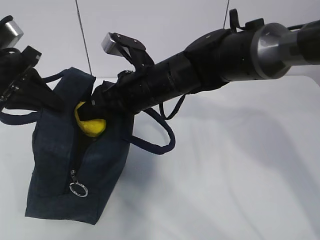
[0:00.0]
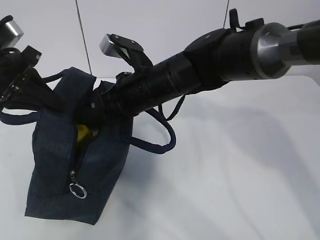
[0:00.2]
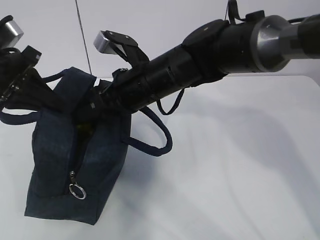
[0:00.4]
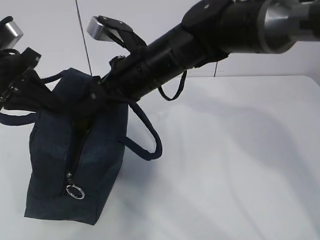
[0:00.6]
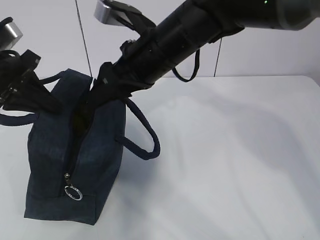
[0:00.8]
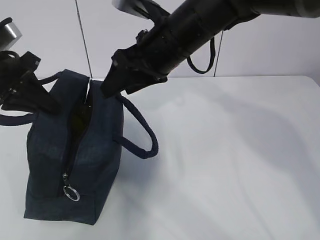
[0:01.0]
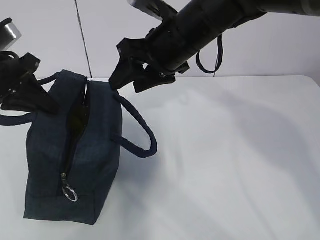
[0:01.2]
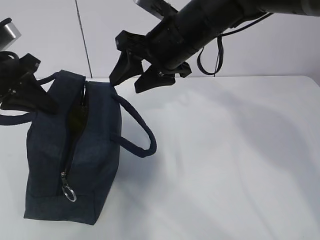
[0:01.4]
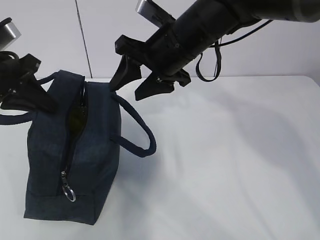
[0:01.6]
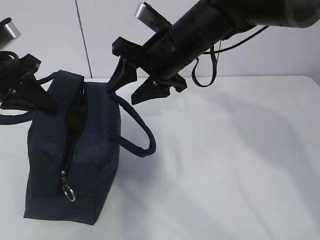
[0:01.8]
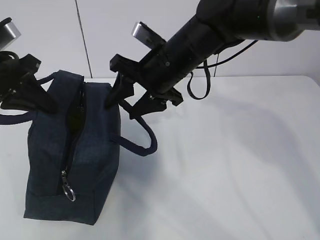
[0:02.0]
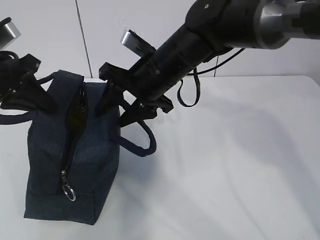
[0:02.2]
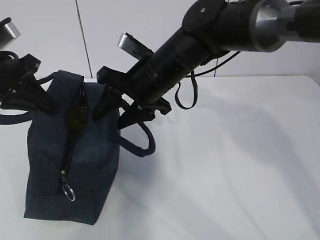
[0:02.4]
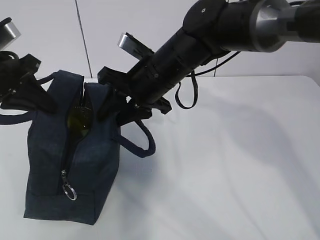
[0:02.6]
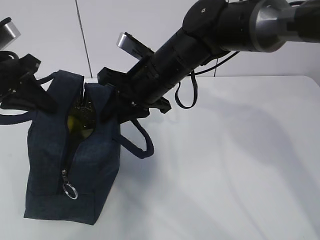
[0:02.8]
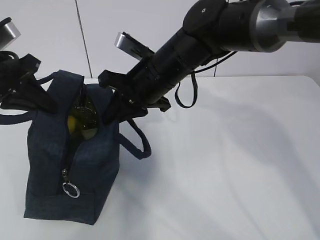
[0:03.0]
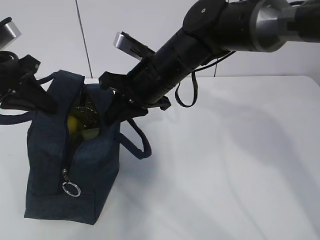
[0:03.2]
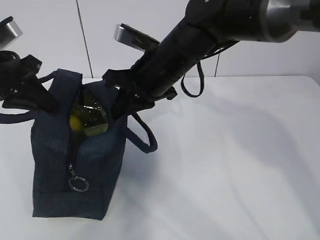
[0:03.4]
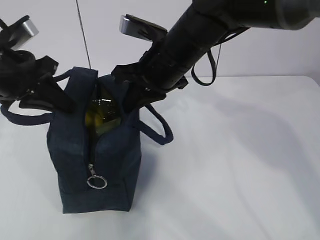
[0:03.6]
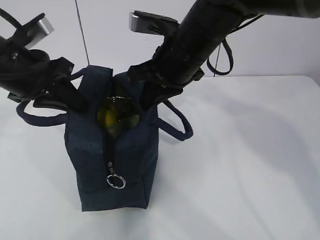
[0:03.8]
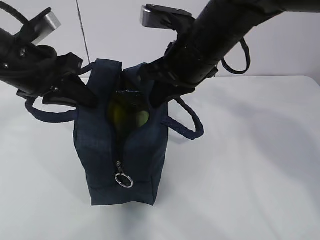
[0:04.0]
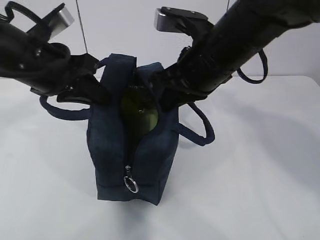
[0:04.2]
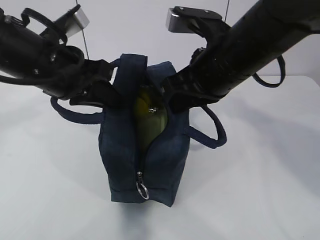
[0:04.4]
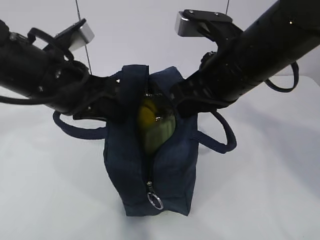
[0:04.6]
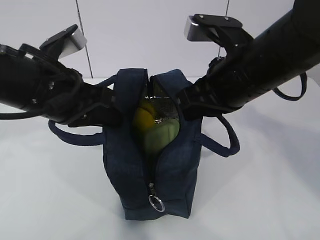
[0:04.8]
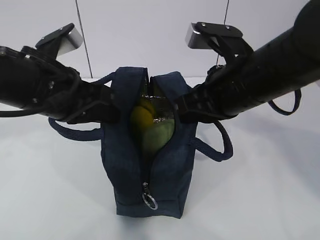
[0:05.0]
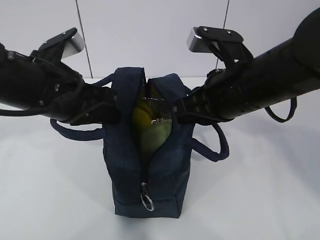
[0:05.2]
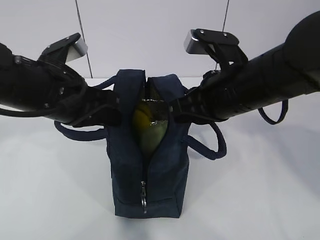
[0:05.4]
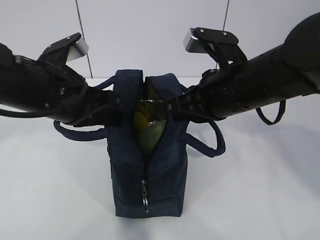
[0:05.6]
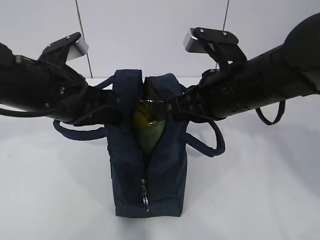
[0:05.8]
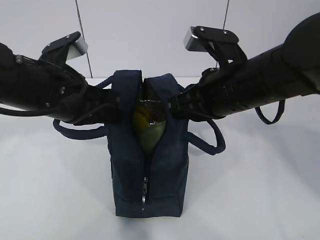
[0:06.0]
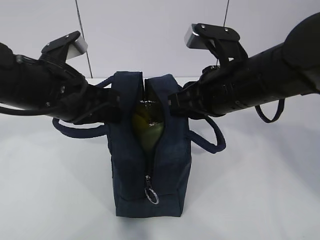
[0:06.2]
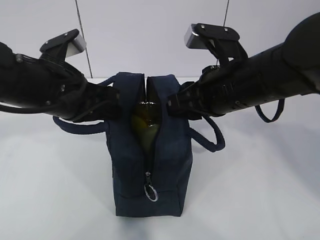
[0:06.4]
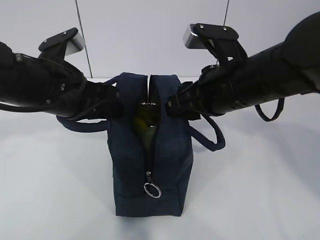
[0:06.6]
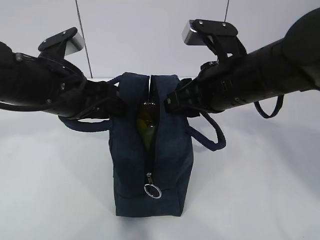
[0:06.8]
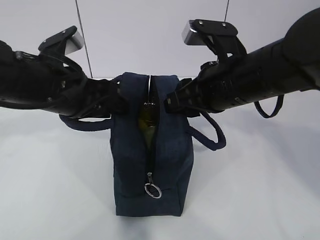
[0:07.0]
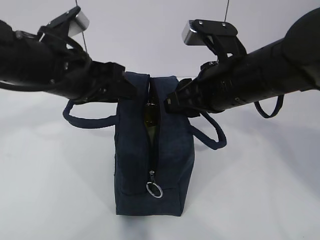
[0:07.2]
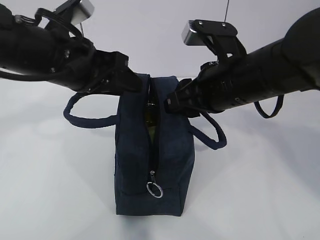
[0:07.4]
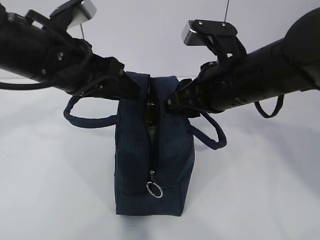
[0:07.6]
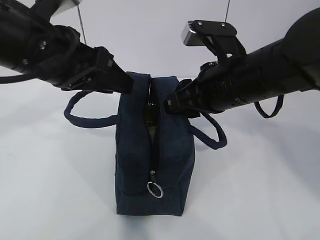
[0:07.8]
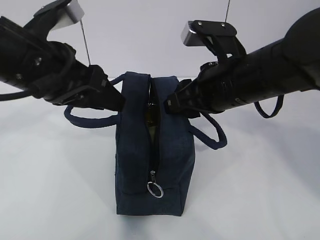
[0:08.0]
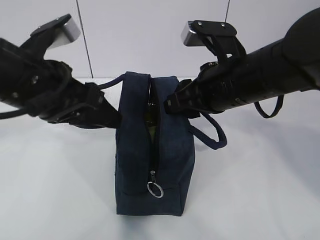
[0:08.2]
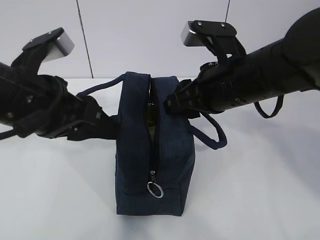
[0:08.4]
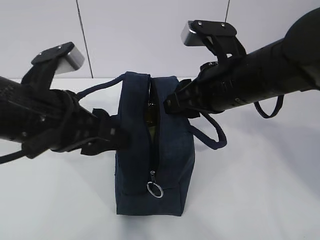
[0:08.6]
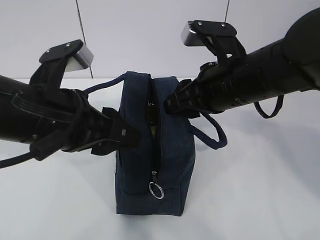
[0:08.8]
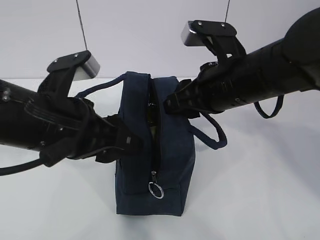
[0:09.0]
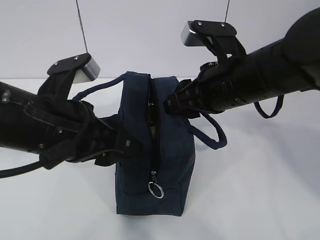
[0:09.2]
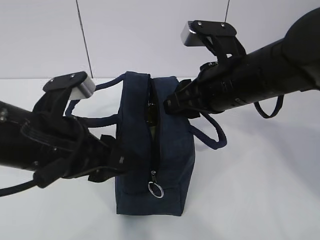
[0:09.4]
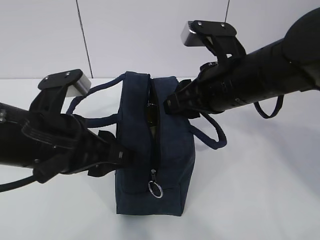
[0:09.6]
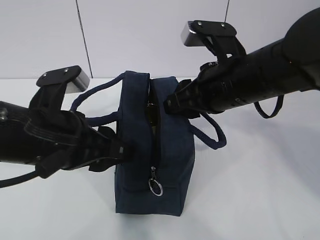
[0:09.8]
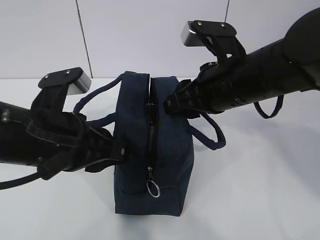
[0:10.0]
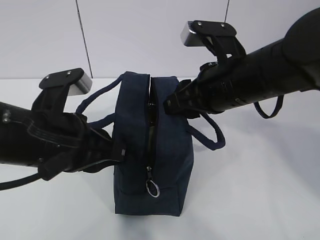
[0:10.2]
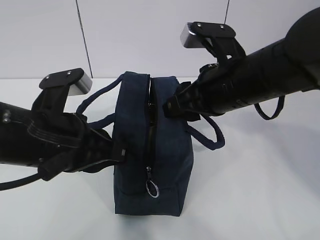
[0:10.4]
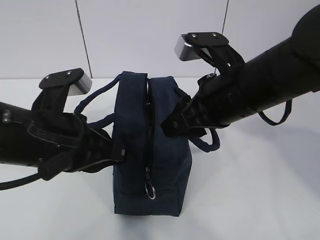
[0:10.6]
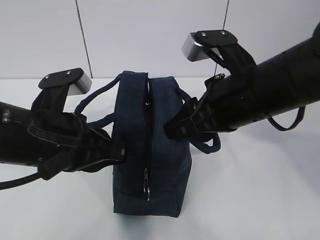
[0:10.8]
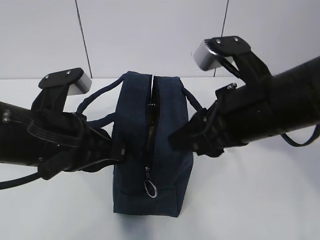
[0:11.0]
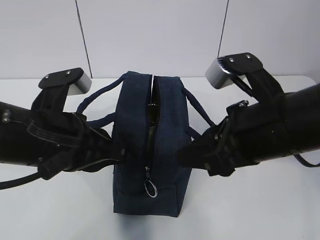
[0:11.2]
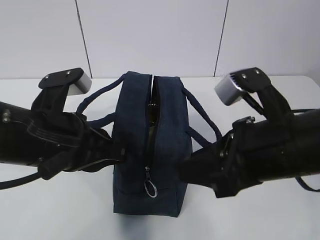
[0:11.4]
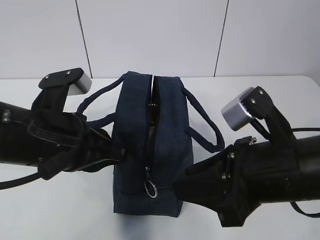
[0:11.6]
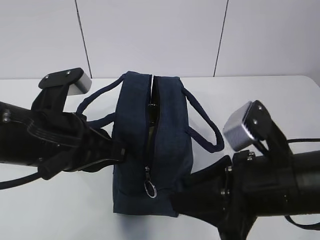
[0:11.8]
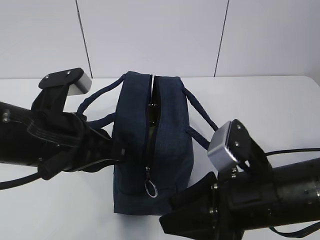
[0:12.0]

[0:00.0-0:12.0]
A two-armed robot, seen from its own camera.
0:00.0 to 0:01.6: The right gripper moves upward, approximately 5 cm.
0:01.6 to 0:03.0: The right gripper shifts by about 5 cm, and closes.
0:03.0 to 0:04.4: The left gripper travels to the right by some 10 cm. The right gripper heads to the right, backward and upward, covering about 10 cm.
0:06.0 to 0:07.6: The left gripper opens up; the right gripper opens up.
0:07.6 to 0:09.0: The left gripper heads backward, covering some 5 cm.
0:09.0 to 0:10.4: The left gripper closes up.
0:10.4 to 0:12.0: The right gripper heads backward and downward, covering approximately 15 cm.

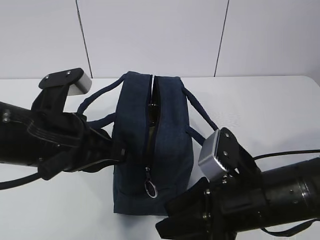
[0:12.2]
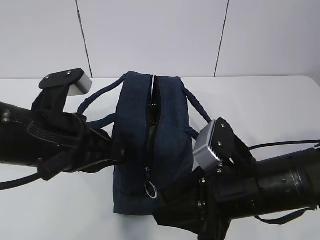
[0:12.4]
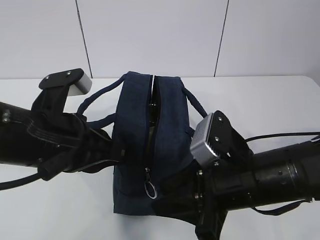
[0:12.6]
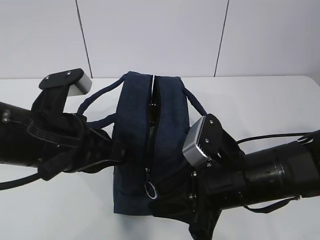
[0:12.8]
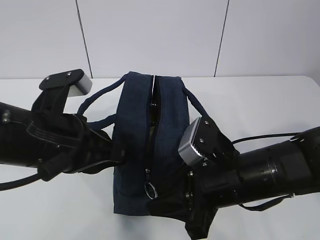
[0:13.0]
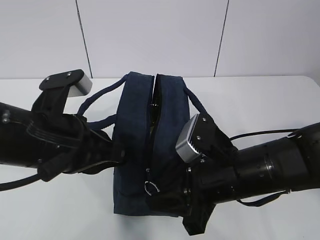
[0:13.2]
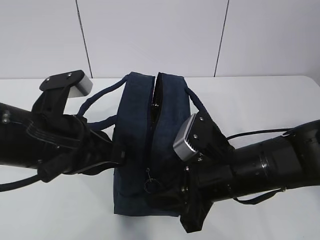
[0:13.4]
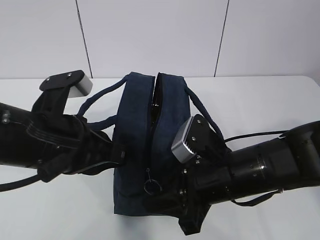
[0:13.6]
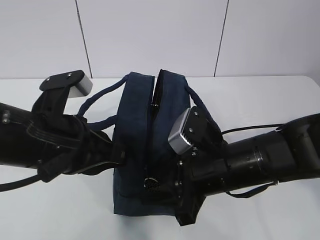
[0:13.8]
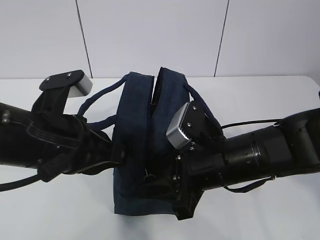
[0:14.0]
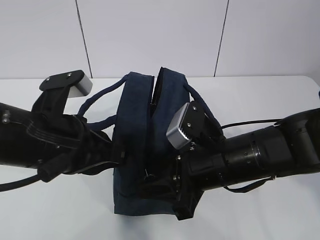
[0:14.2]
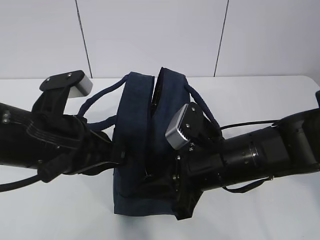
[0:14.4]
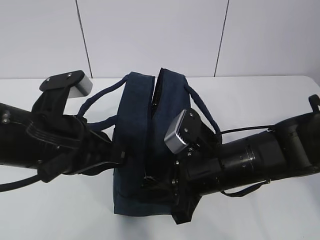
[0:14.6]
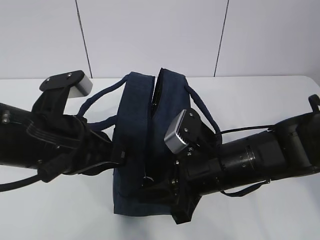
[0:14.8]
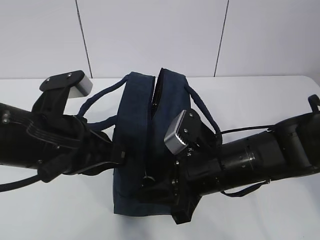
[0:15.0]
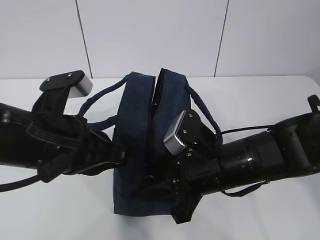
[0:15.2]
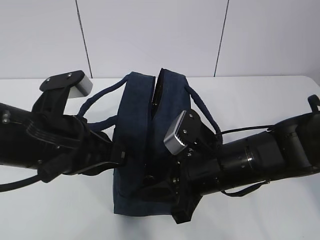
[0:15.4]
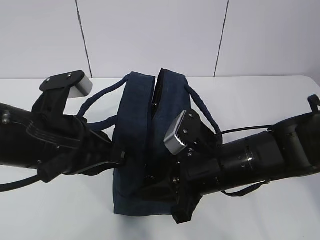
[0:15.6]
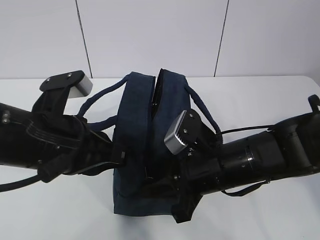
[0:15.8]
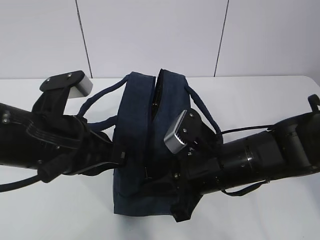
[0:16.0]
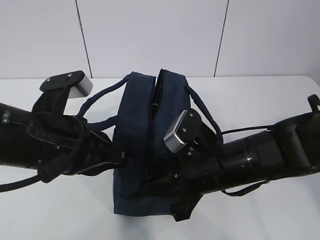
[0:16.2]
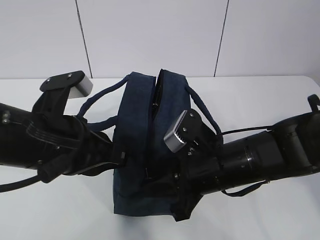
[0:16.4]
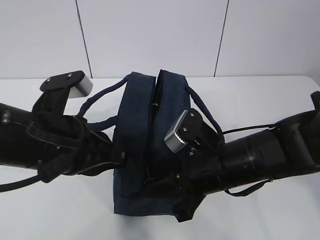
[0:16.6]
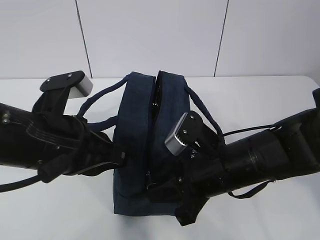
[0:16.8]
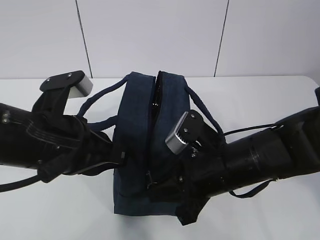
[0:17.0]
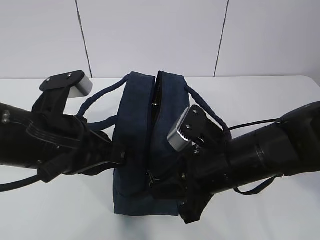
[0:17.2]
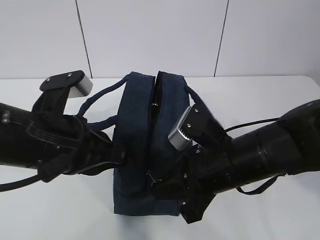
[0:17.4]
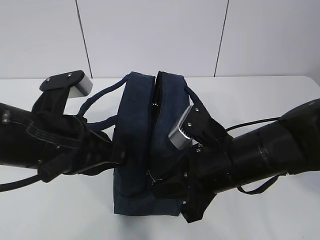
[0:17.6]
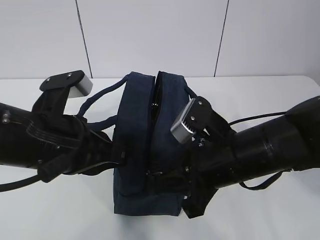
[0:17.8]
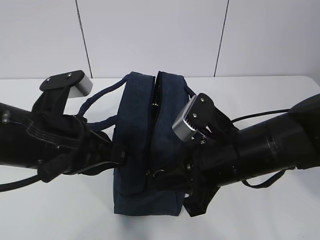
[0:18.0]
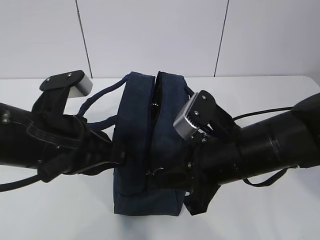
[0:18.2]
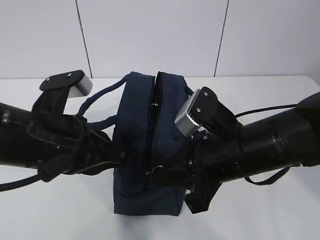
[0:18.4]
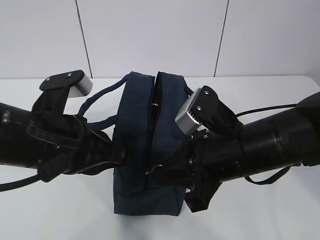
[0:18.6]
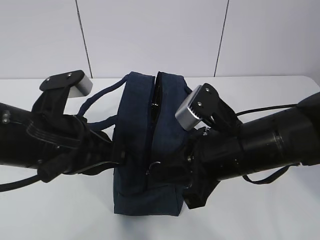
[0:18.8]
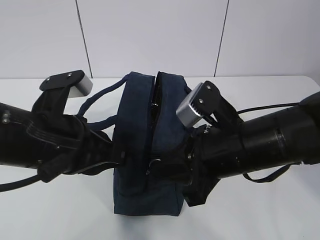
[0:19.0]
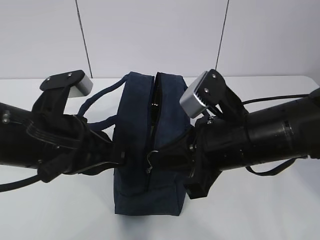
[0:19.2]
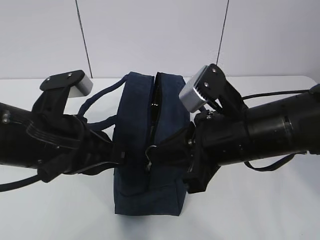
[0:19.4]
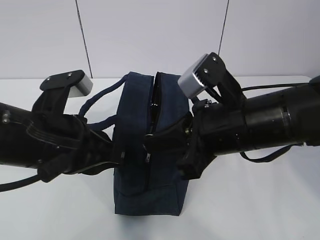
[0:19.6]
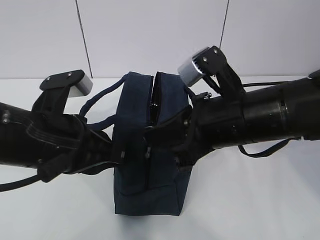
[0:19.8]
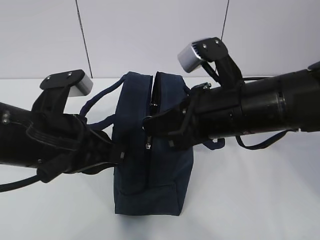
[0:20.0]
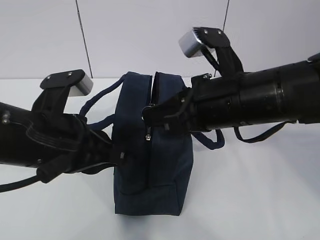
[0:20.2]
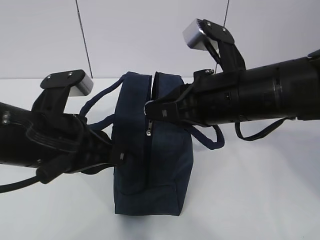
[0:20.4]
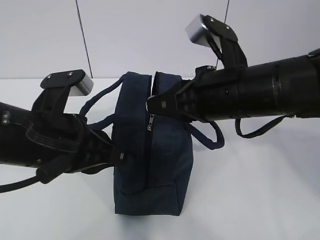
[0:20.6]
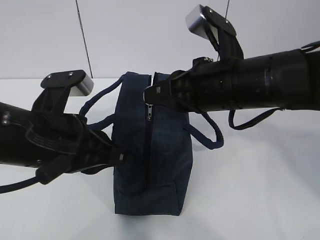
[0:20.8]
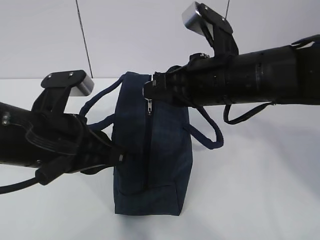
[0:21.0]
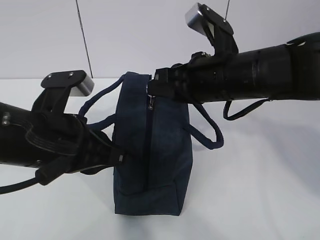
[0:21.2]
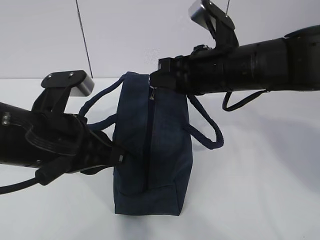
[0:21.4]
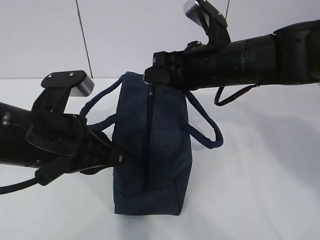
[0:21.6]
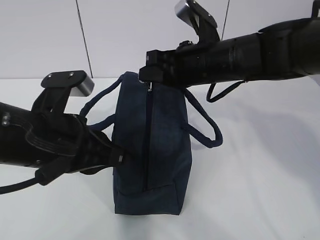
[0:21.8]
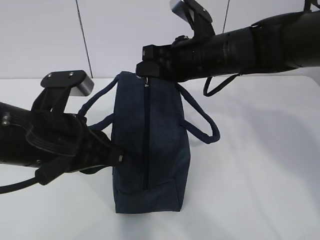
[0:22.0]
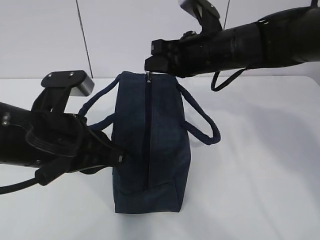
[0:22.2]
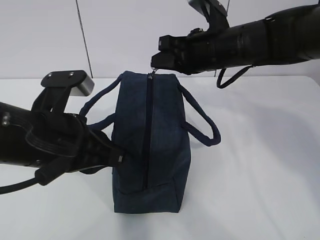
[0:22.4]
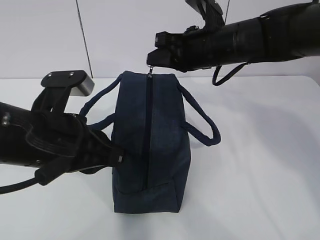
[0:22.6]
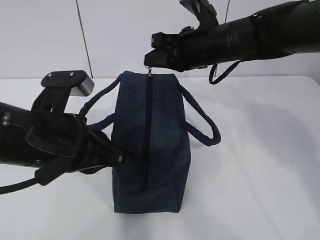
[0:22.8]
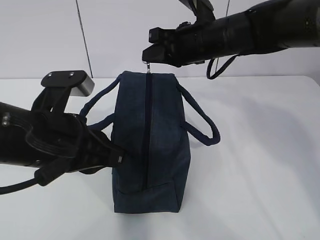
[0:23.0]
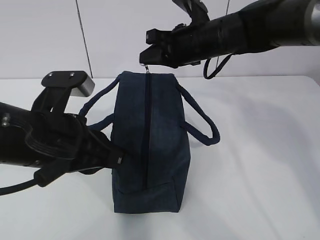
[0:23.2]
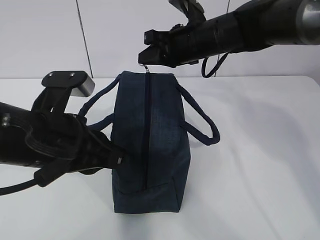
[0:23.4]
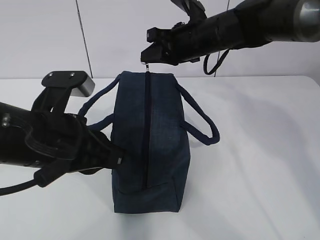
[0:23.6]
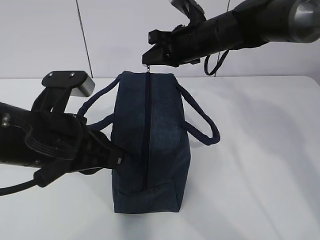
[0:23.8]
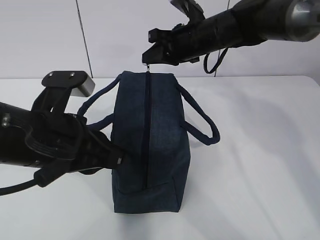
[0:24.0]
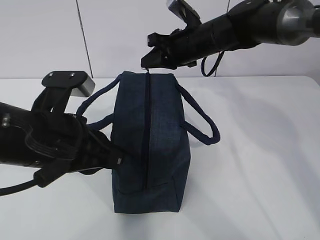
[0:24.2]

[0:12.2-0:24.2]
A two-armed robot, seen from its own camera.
Step, 0:12.2 to 0:15.2: Pull the zipper with your right hand.
0:12.2 to 0:13.8: The right gripper shifts by some 5 cm.
0:13.8 to 0:15.2: The two grippers keep their place.
0:15.2 to 0:16.6: Both grippers stay about where they are.
0:16.6 to 0:18.2: There are only small adjustments of the grippers.
0:18.2 to 0:19.8: There are only small adjustments of the grippers.
0:19.8 to 0:21.2: The right gripper goes about 5 cm forward.
0:21.2 to 0:22.6: The right gripper travels forward by approximately 10 cm.
0:22.6 to 0:24.2: The right gripper goes some 10 cm forward.
